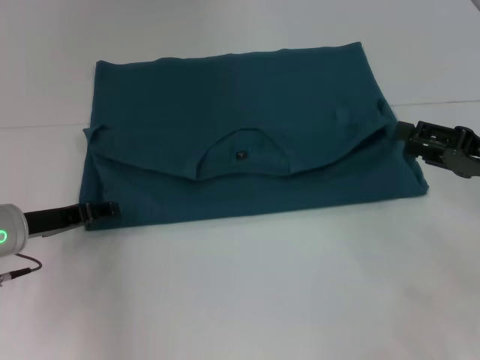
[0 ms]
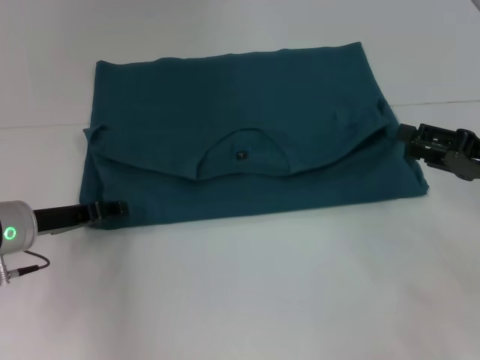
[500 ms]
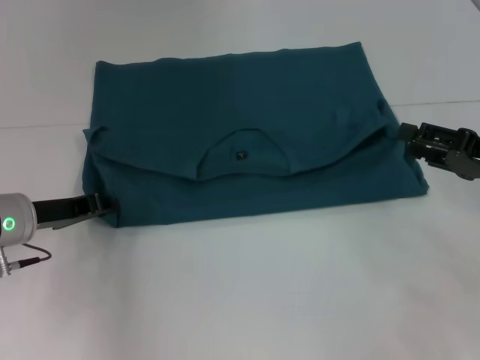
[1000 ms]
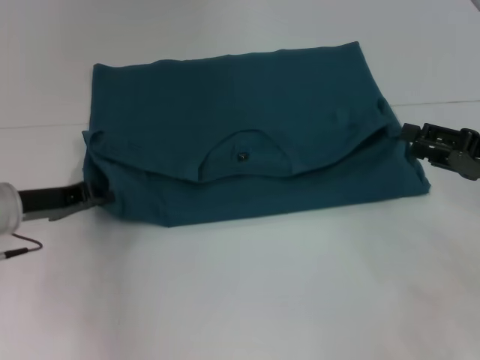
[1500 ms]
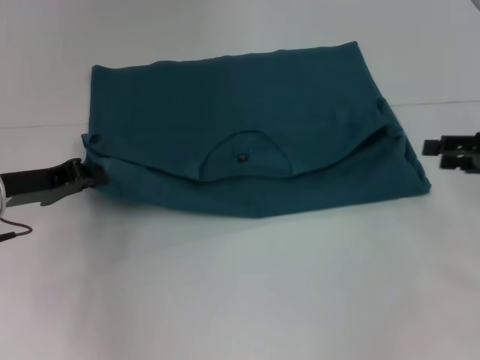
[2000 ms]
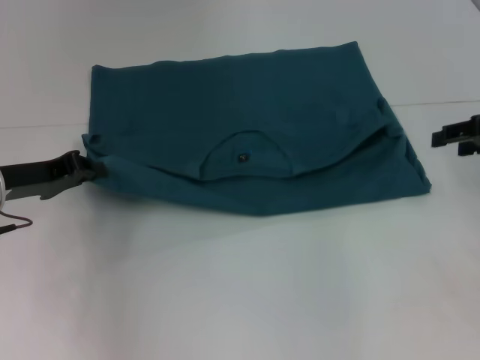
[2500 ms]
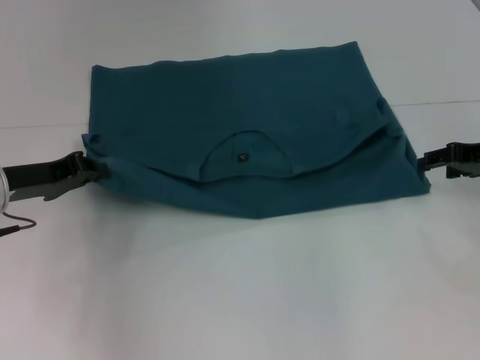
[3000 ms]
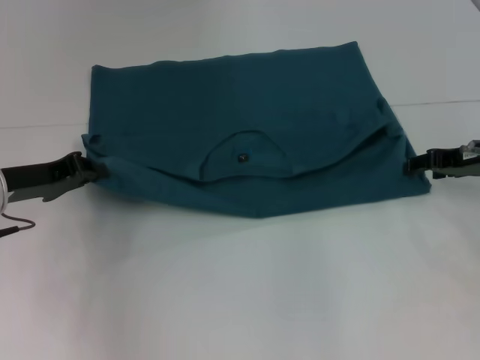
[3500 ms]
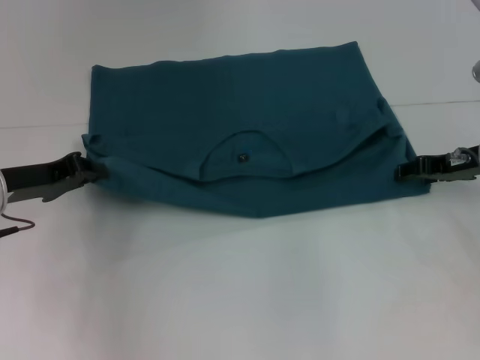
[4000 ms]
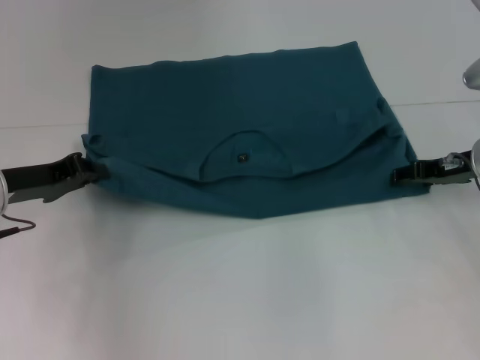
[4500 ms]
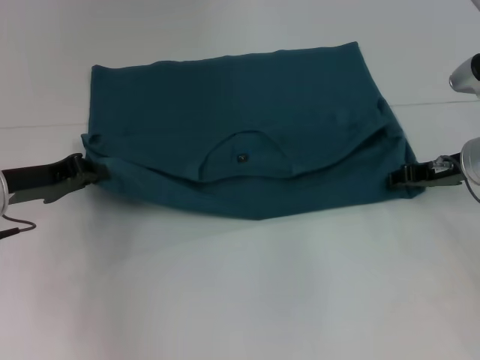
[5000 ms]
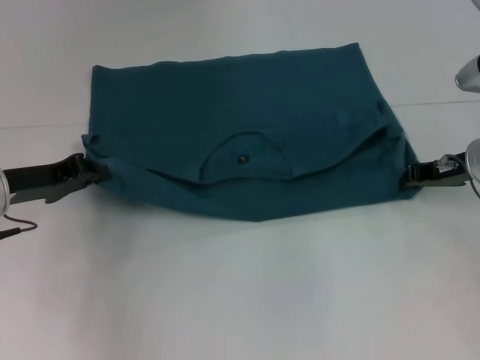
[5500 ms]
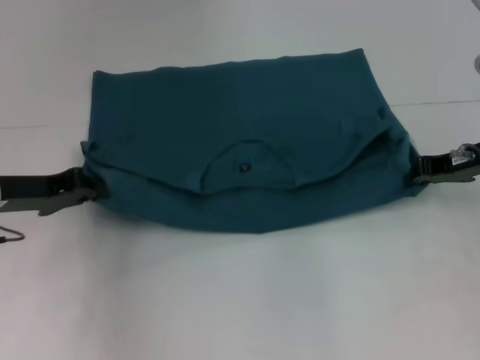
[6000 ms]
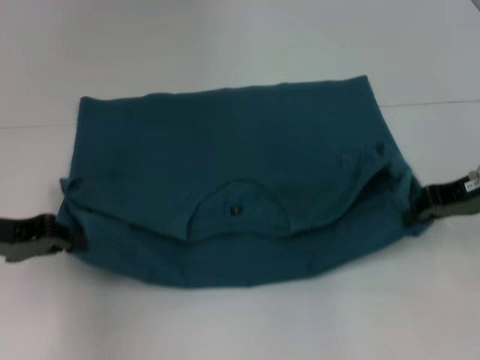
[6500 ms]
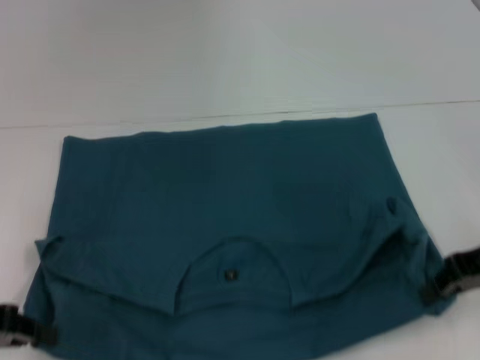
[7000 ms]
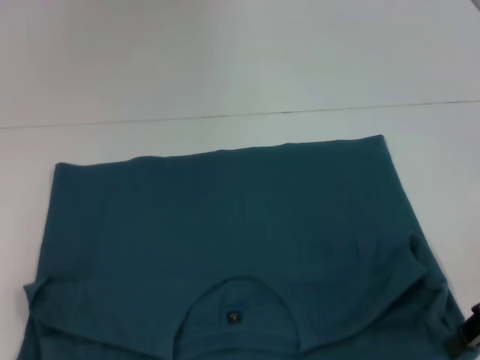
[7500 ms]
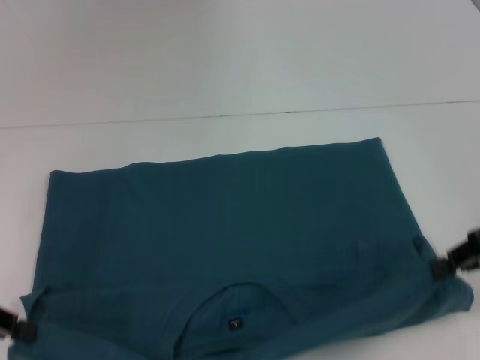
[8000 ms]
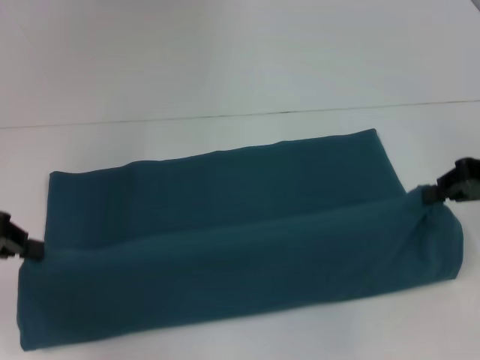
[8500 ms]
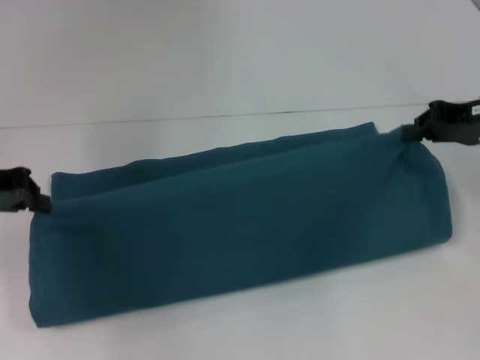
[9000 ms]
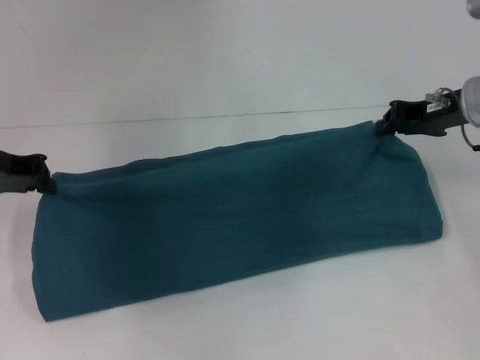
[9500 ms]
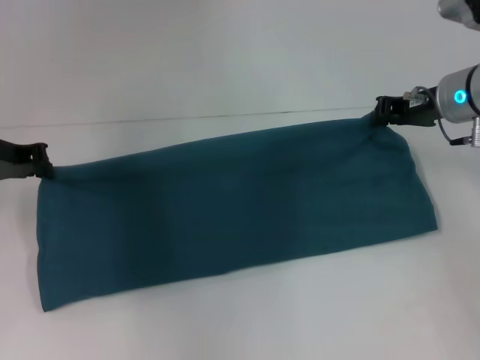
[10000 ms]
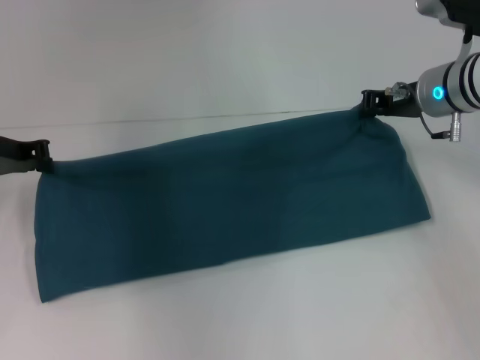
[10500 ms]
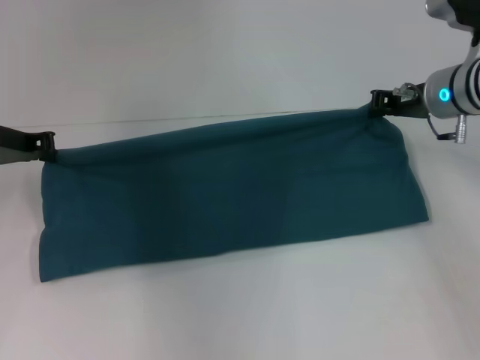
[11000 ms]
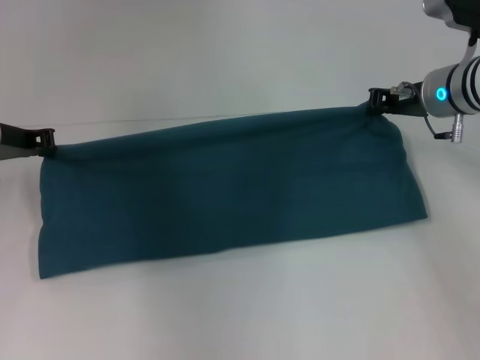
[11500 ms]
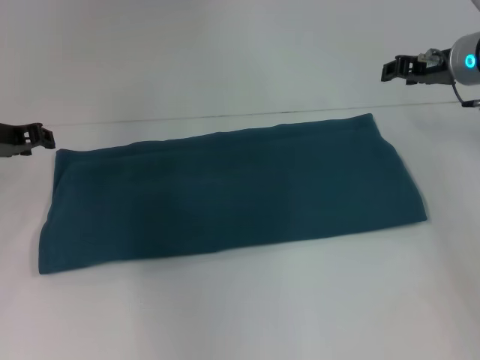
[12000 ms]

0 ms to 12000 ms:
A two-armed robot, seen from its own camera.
Step, 0 ms to 7500 ms: Pull the clothes with your left hand.
Step, 0 ms to 7500 ms: Pull the clothes with your right hand.
Step, 8000 ms to 11500 ms: Fold the clothes to the right.
0 ms to 2000 ms: The left gripper closes its fingers.
2000 ms to 4000 ms: The right gripper shifts some 10 cm to the left and forward.
4000 ms to 6000 ms: The right gripper closes its fingers.
6000 ms to 8000 ms: The left gripper goes about 10 cm backward and to the left; the right gripper goes roughly 10 cm backward.
8000 ms to 10000 ms: The right gripper moves forward and to the left, some 15 cm, while the left gripper travels forward by roughly 15 cm.
10000 ms to 12000 ms: The grippers stay close to where they were, moving slightly.

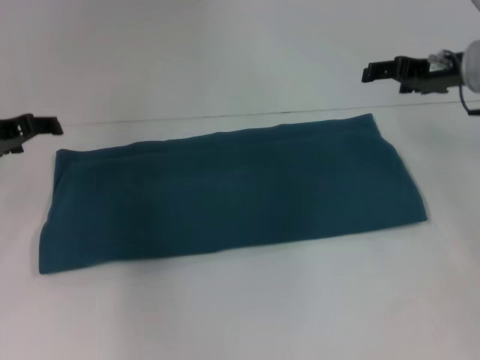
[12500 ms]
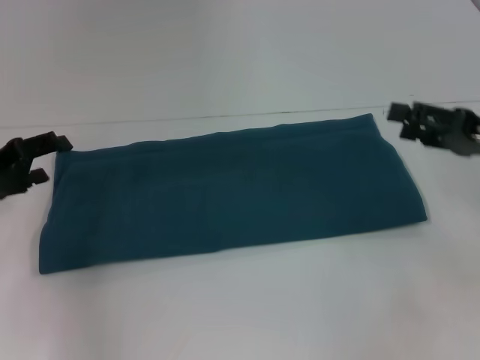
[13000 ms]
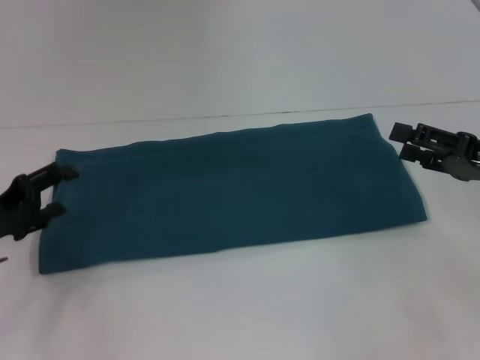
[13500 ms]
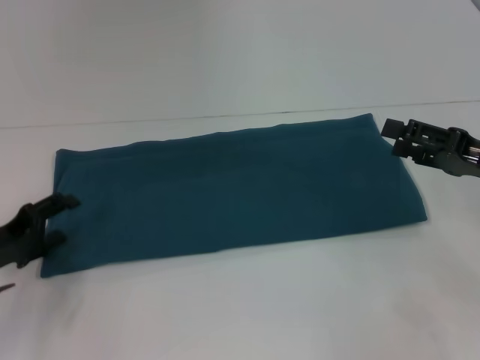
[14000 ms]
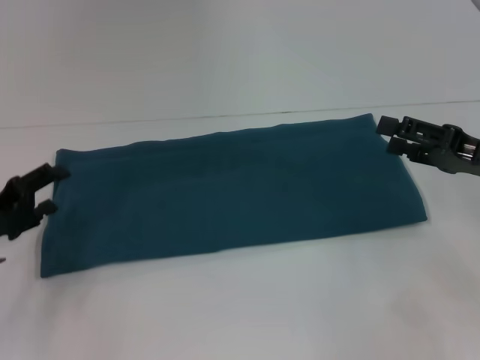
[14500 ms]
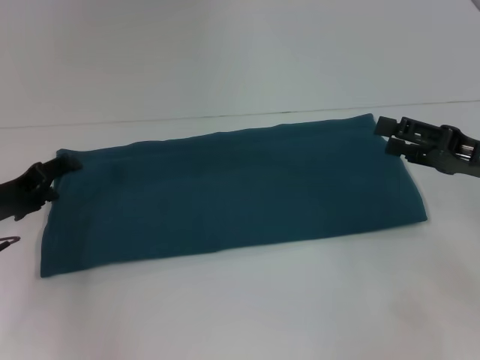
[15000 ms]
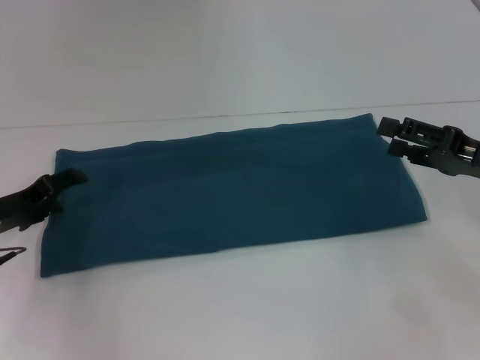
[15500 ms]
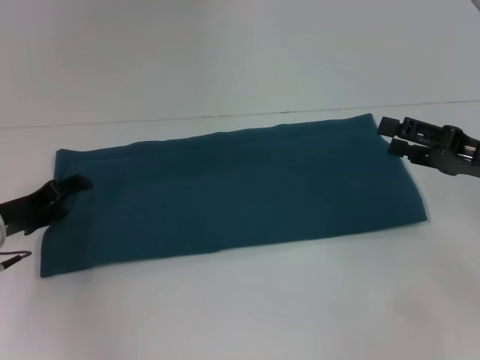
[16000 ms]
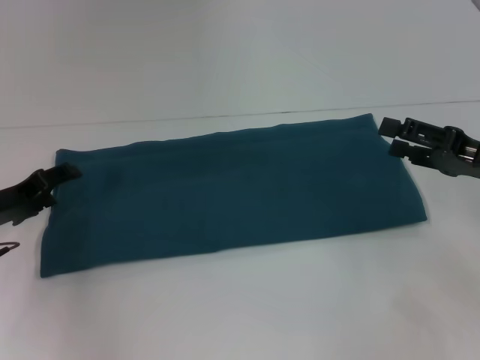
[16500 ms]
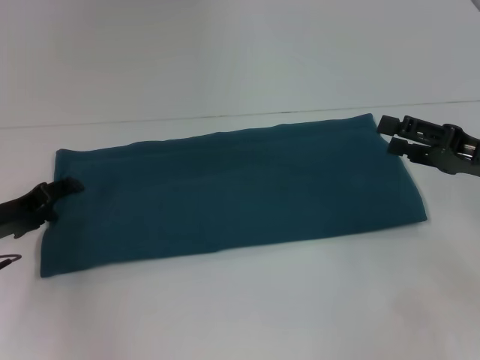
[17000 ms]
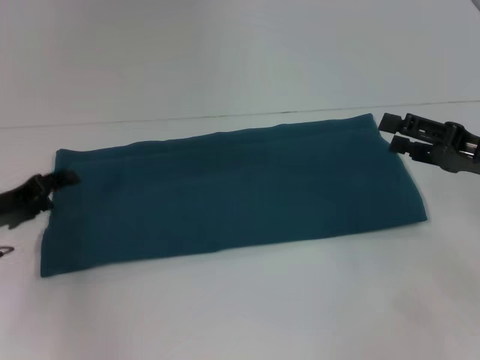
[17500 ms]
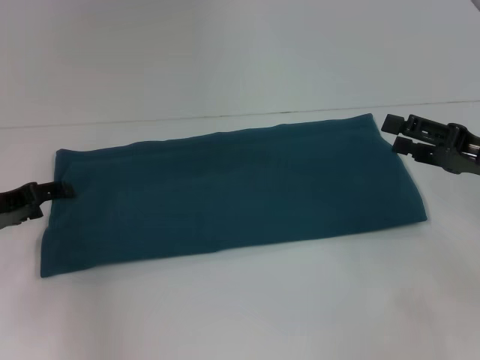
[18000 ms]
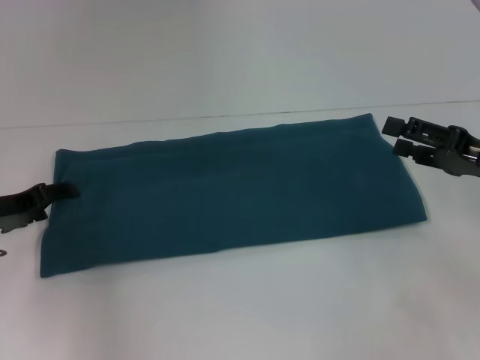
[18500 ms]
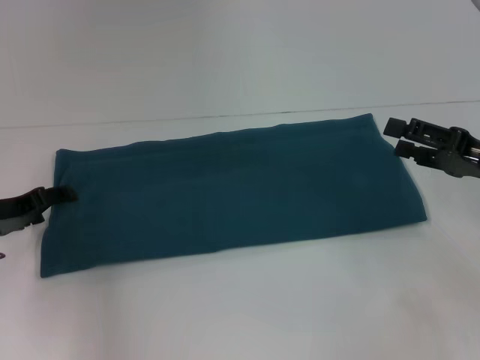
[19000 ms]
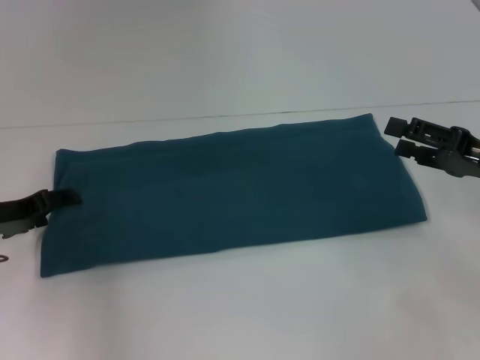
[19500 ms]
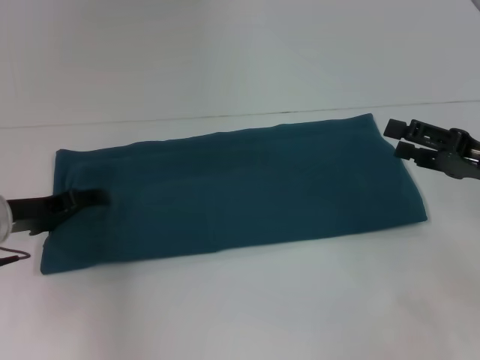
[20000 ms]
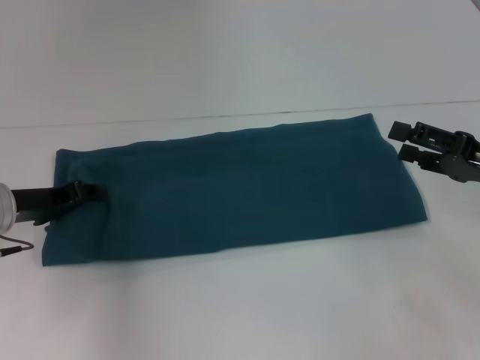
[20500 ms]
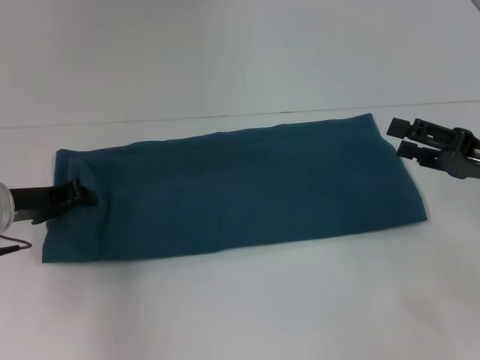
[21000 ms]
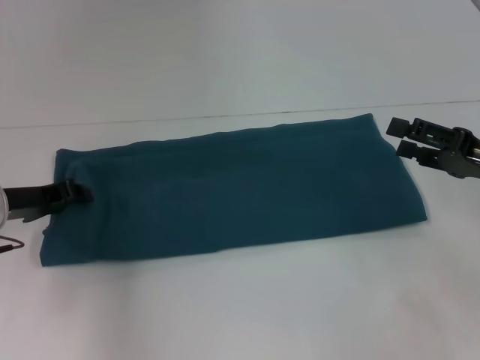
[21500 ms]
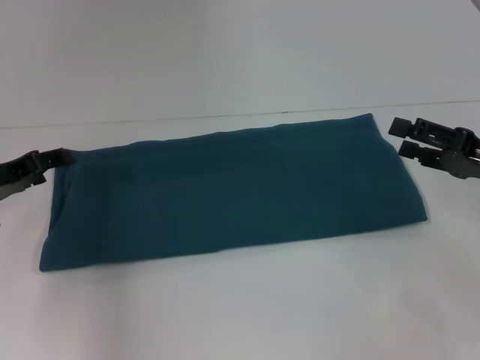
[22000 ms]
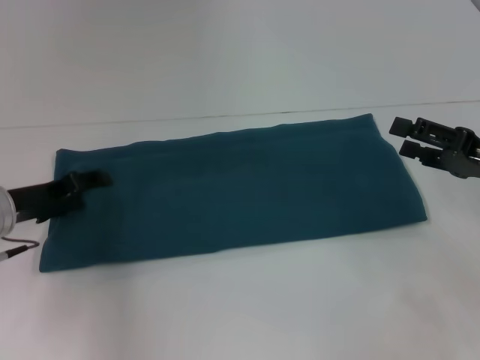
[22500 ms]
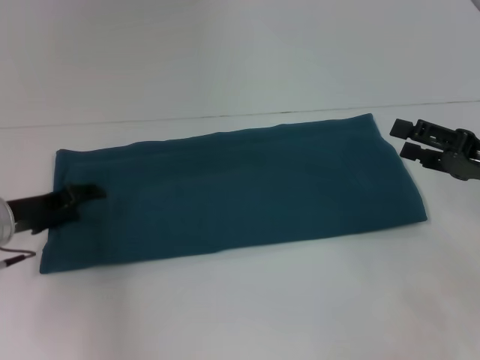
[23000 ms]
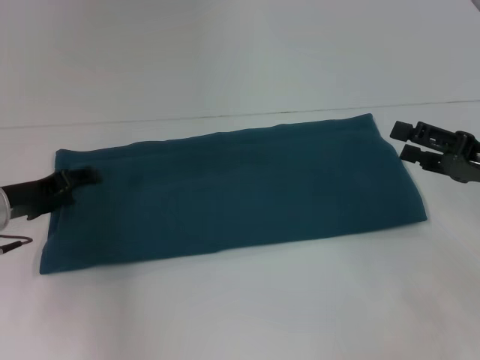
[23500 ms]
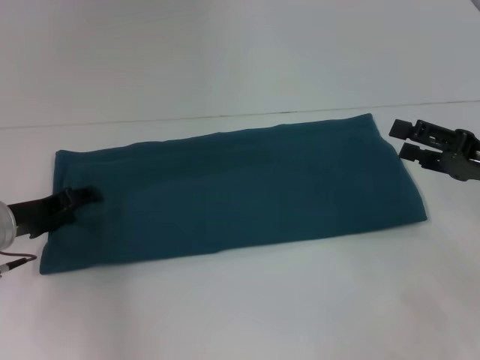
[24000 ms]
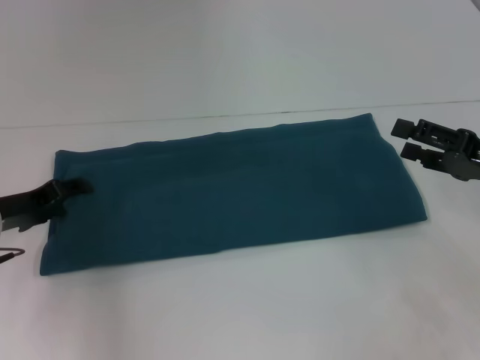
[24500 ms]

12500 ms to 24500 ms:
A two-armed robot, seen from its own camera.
12500 ms to 14500 ms: The two grippers go about 15 cm backward and downward.
14500 ms to 16500 ms: There are only small adjustments of the grippers.
16500 ms to 20500 ms: The grippers move only a little.
20500 ms to 22500 ms: The left gripper closes, then opens again.
22500 ms to 24500 ms: The grippers move only a little.

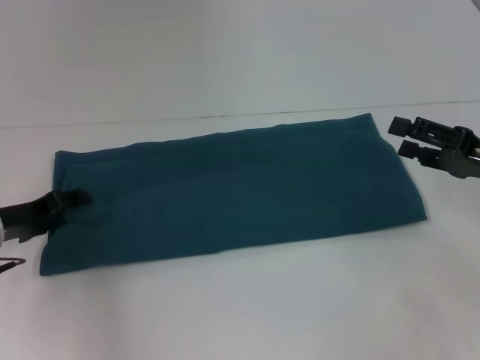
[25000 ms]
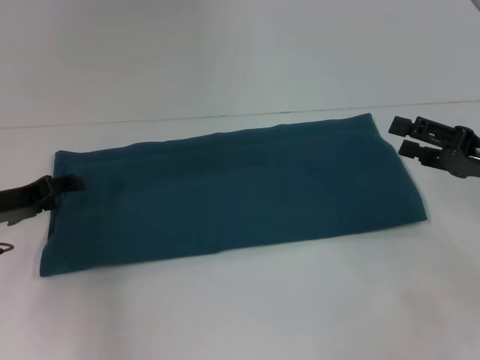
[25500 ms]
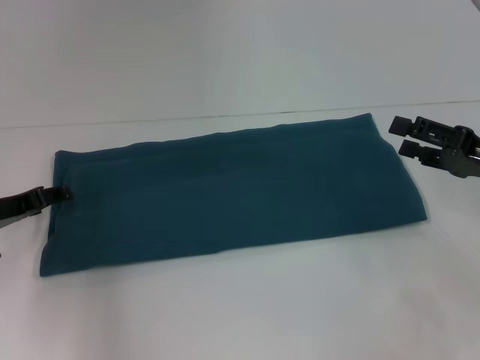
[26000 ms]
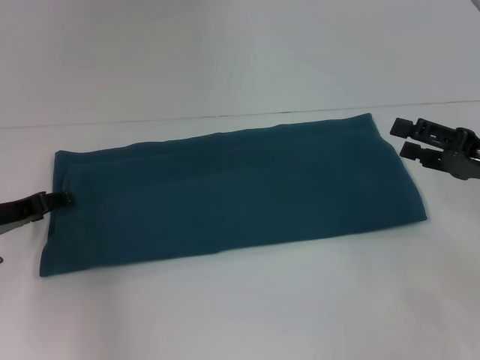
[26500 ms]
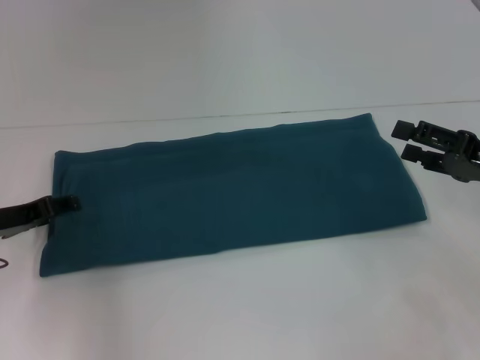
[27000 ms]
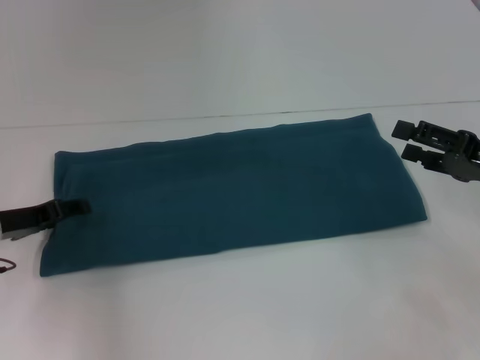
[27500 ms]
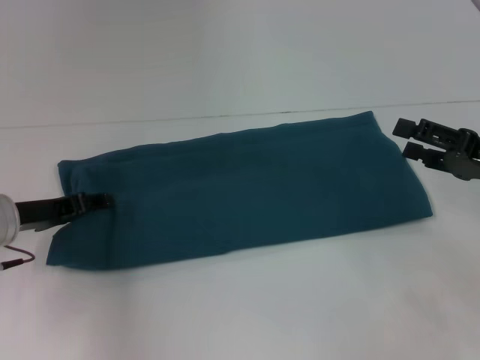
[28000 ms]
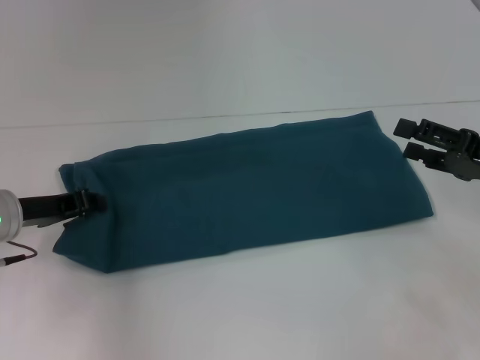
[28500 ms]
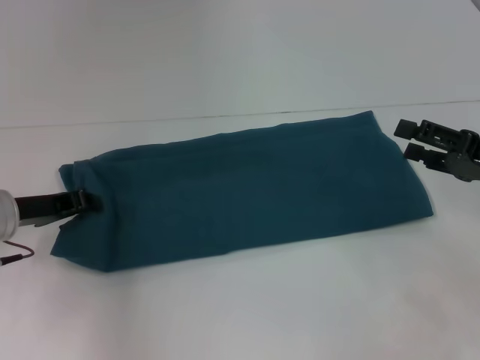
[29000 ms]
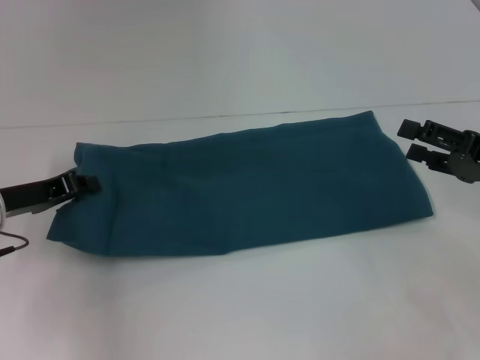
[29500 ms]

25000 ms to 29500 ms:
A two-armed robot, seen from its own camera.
25000 ms to 27000 ms: The grippers move only a little.
27000 ms to 29500 ms: The left gripper closes its fingers.
